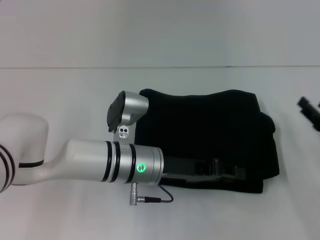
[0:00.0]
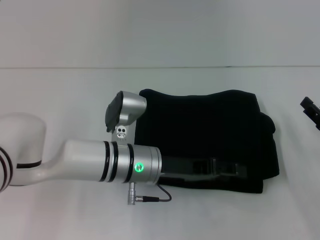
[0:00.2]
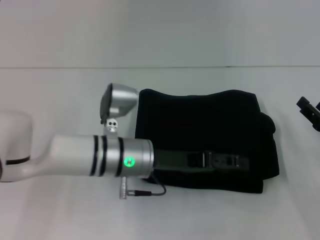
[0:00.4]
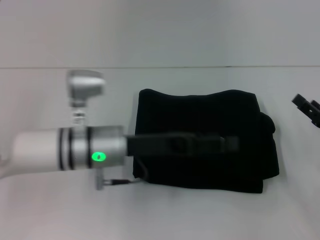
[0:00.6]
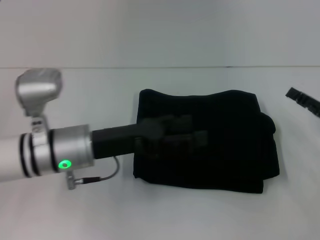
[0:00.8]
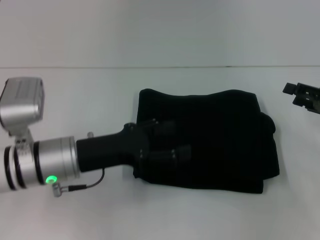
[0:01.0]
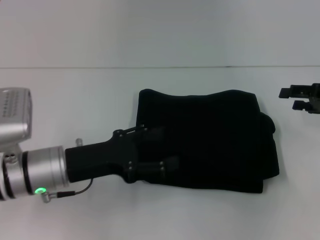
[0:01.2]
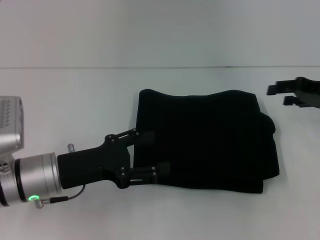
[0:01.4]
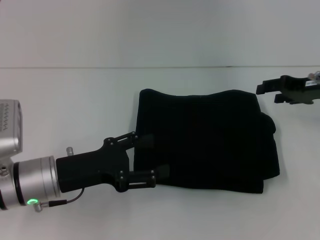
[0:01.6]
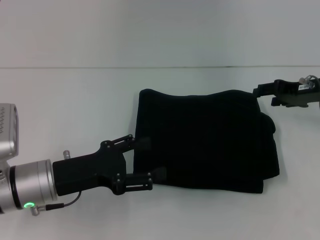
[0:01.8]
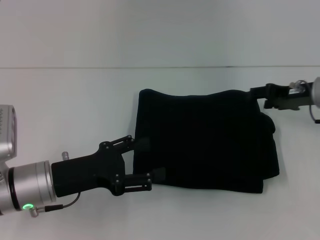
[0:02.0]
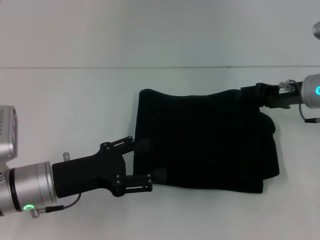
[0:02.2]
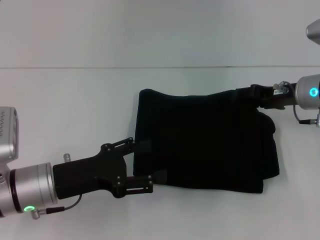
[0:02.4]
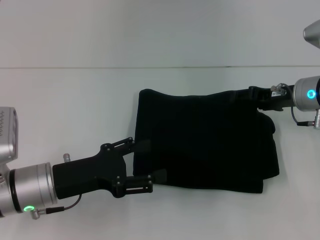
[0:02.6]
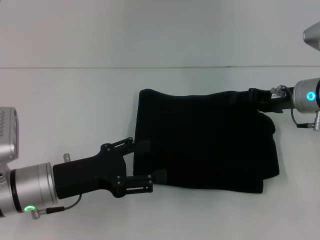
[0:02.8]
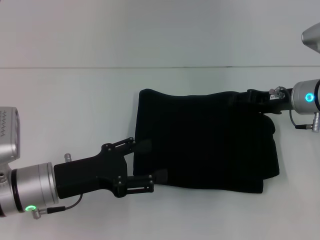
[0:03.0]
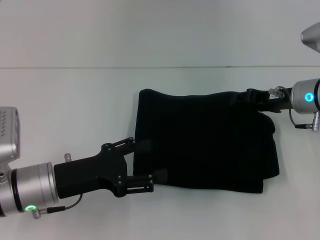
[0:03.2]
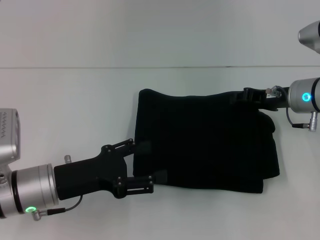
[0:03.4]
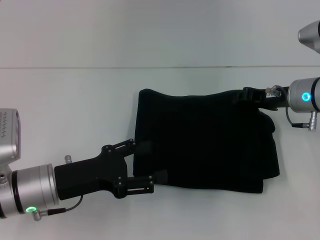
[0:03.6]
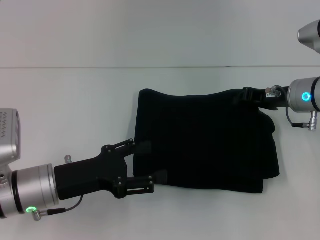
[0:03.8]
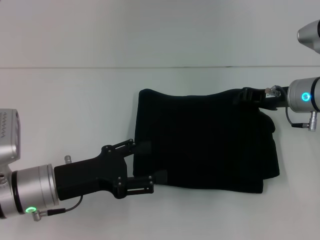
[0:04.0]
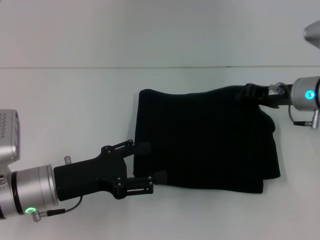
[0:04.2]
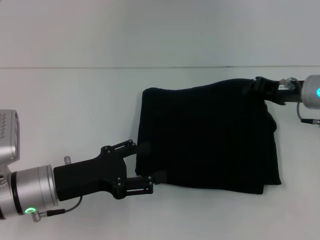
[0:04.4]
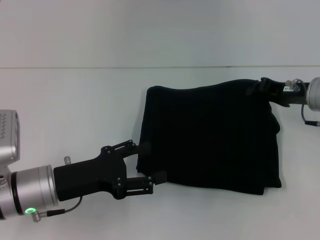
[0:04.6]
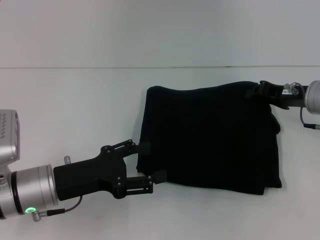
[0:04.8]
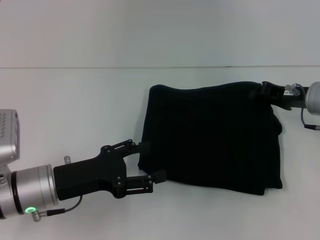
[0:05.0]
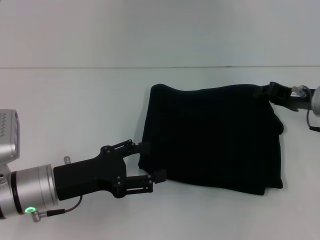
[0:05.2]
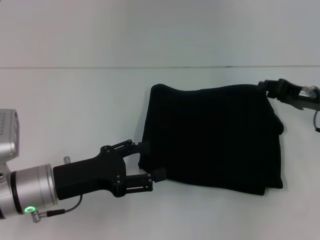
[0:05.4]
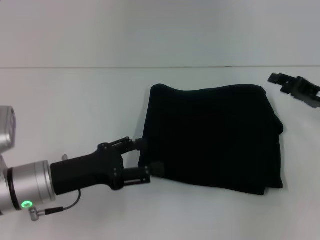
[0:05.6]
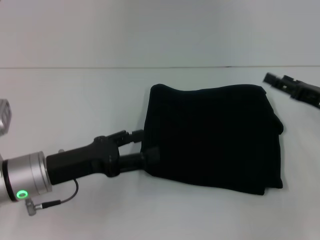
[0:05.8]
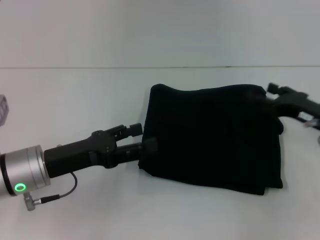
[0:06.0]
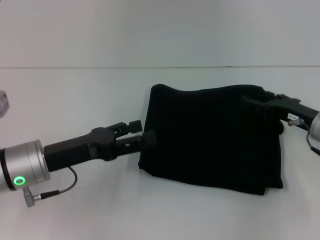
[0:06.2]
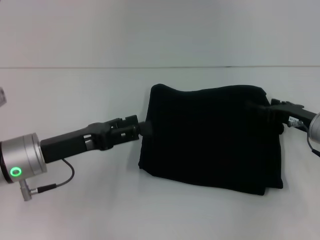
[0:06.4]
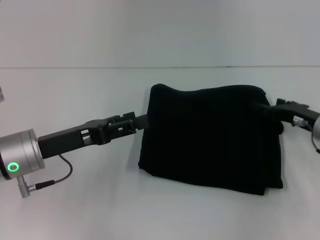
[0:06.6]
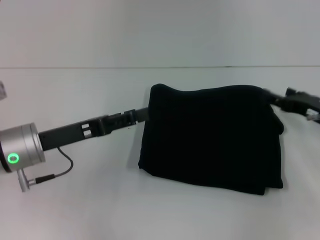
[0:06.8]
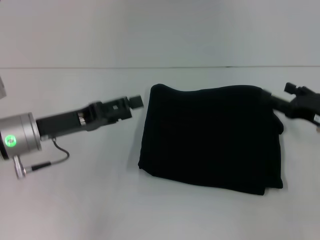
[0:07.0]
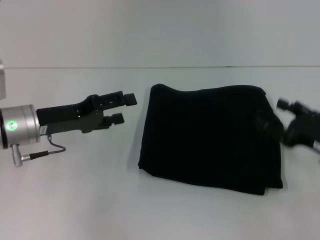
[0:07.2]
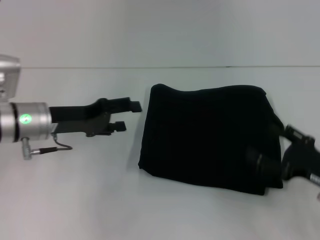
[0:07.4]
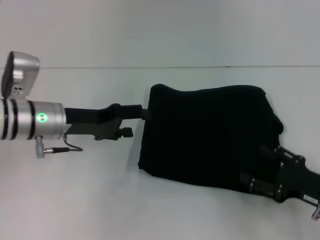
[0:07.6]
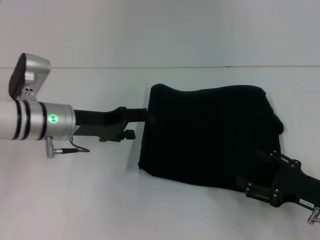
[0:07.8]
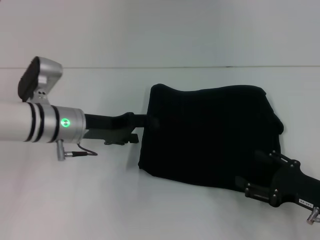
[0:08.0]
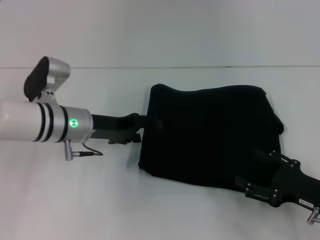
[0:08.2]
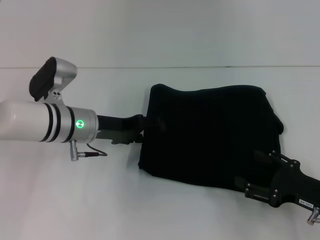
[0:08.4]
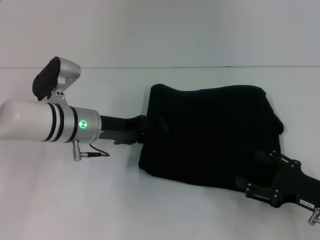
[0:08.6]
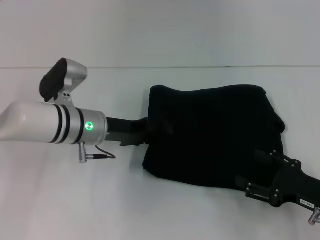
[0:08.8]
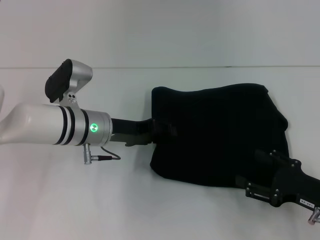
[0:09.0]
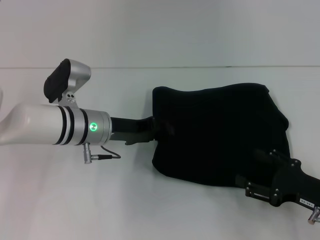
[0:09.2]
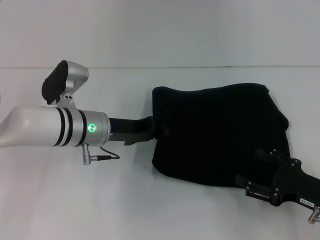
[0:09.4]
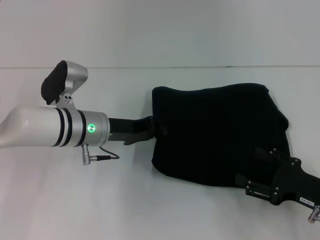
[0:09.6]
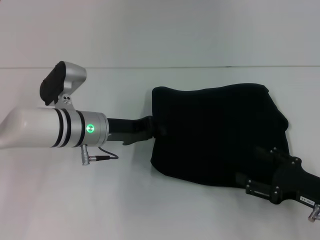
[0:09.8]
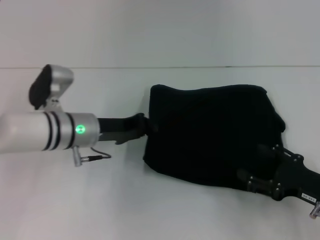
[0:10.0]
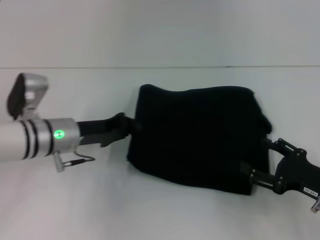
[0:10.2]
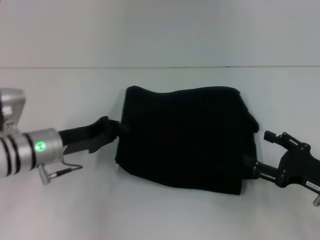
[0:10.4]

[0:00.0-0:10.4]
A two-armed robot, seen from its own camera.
0:00.0 to 0:01.4: The left gripper shifts approximately 15 cm to the left, and opens up. Meanwhile the right gripper moves upward and forward, some 15 cm.
0:01.4 to 0:03.0: The right gripper goes about 10 cm to the left.
0:03.0 to 0:04.4: The right gripper closes its fingers.
0:04.4 to 0:06.0: The right gripper shifts approximately 5 cm backward, and opens.
0:06.0 to 0:07.4: The left gripper is displaced forward by some 10 cm. Meanwhile the right gripper heads backward, covering approximately 10 cm.
0:07.4 to 0:09.0: The left gripper goes some 10 cm to the right.
0:09.0 to 0:10.4: The left gripper is displaced to the left by roughly 10 cm, and closes up.

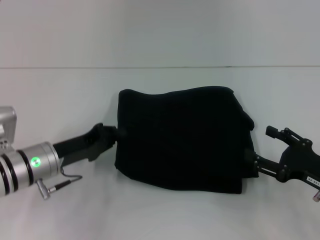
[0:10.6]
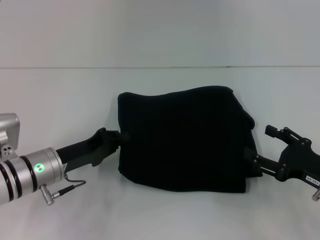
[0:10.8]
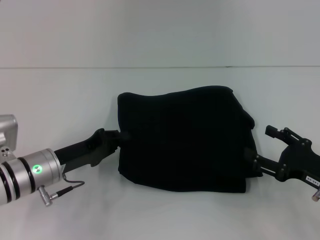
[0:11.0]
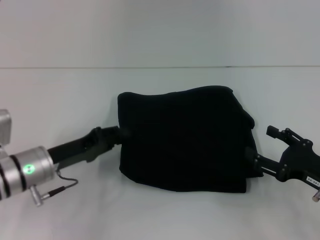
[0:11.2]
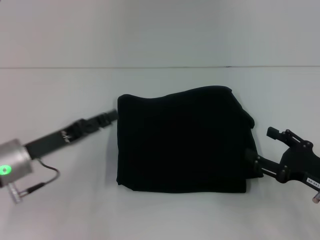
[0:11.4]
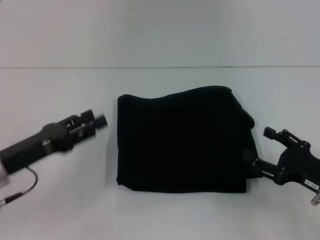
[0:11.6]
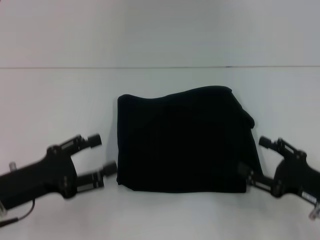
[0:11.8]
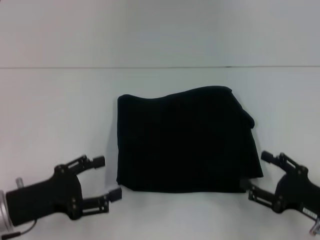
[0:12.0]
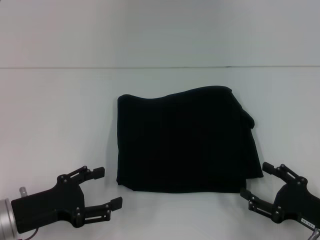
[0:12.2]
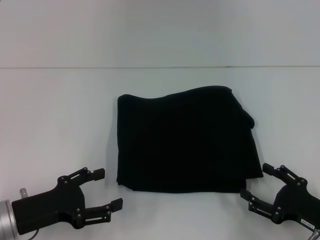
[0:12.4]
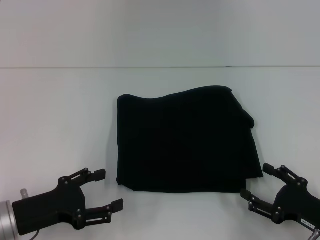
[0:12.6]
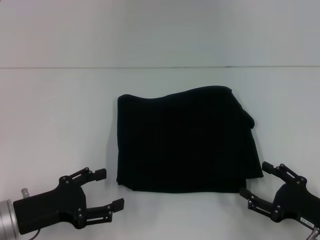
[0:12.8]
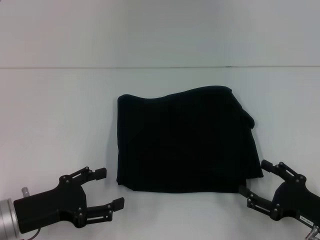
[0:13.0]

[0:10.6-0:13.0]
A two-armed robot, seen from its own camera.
0:10.6 to 0:11.8: The left gripper shifts about 10 cm backward, and opens up.
0:11.8 to 0:13.0: There are only small adjustments of the grippers.
